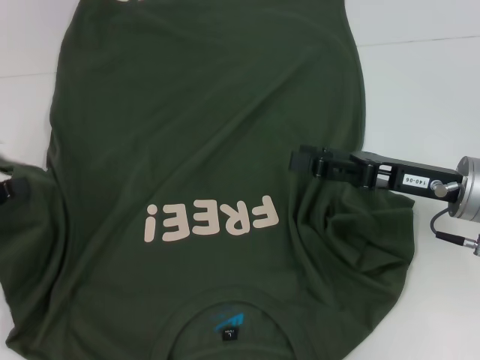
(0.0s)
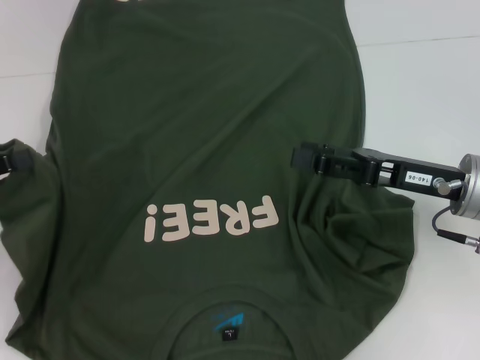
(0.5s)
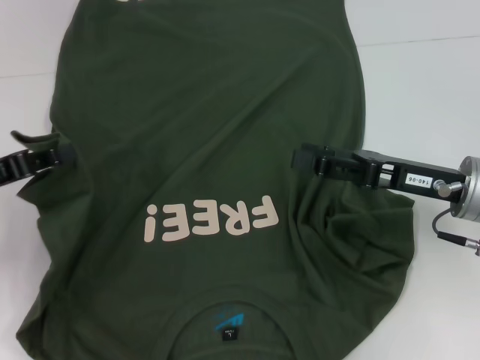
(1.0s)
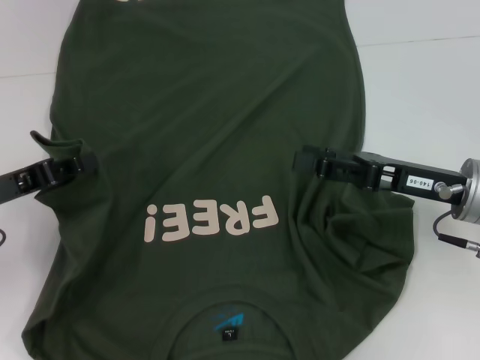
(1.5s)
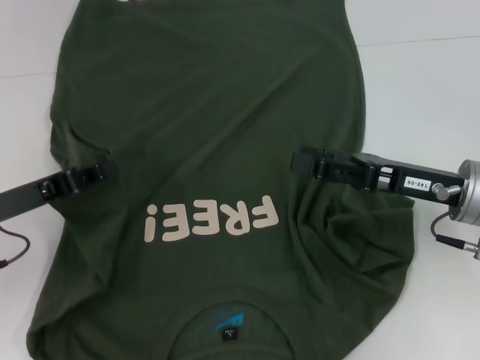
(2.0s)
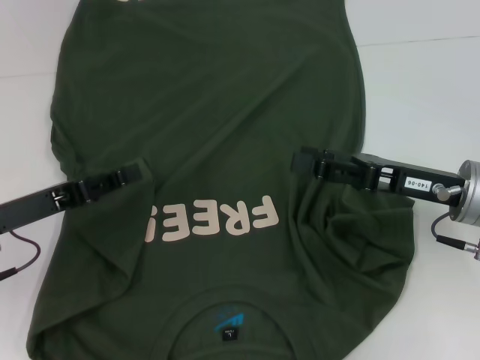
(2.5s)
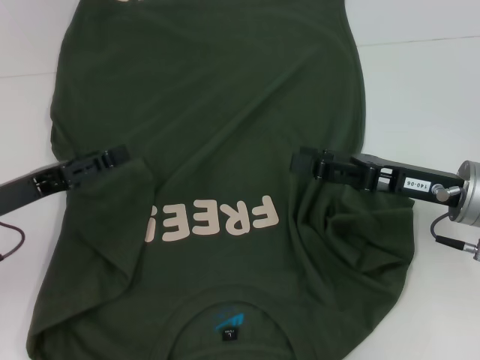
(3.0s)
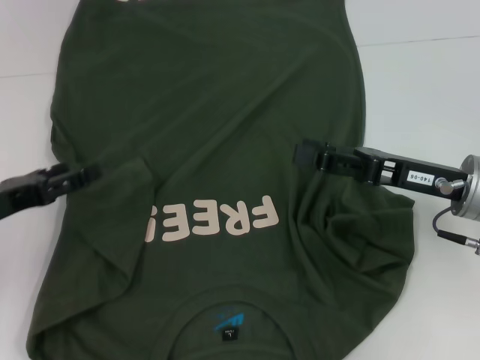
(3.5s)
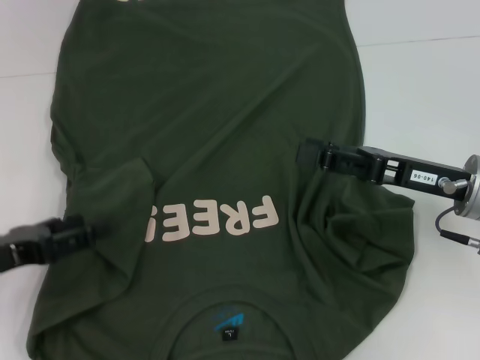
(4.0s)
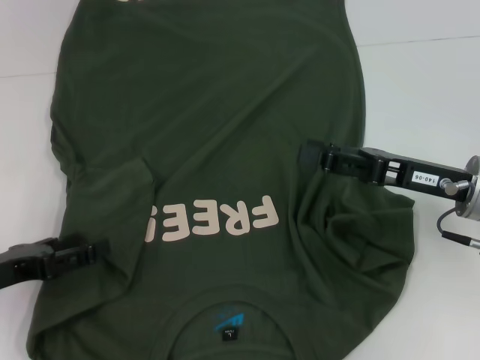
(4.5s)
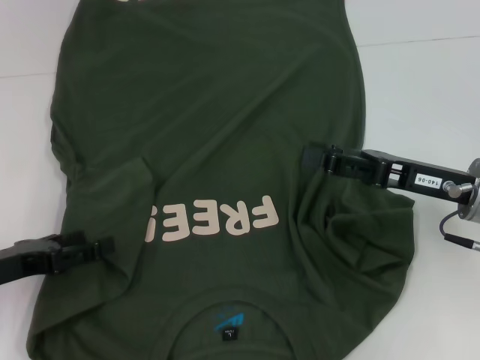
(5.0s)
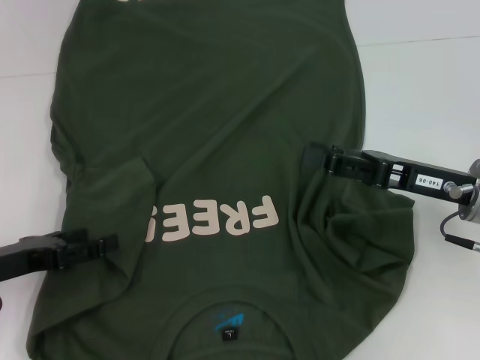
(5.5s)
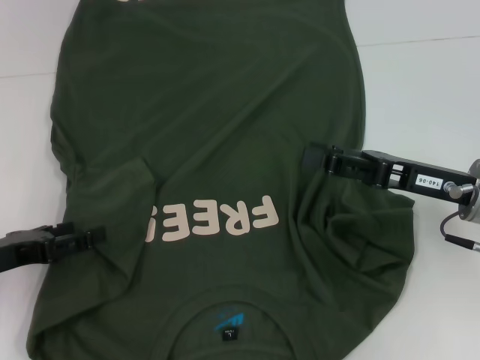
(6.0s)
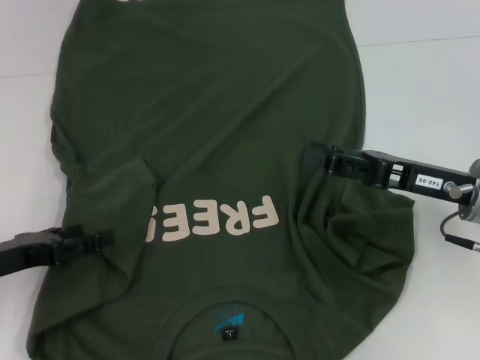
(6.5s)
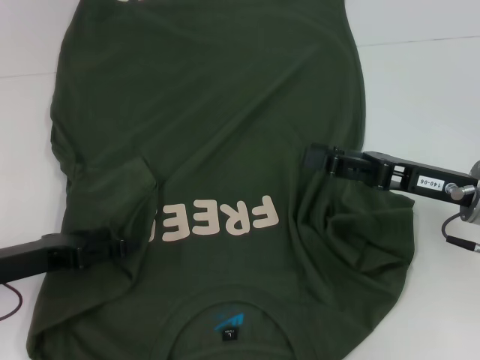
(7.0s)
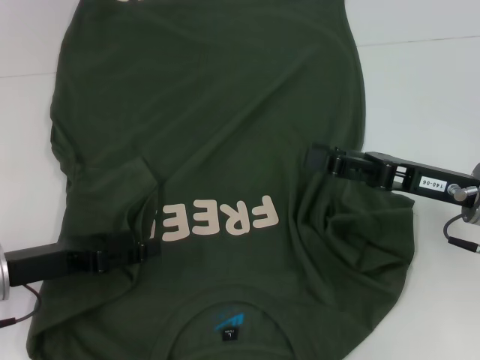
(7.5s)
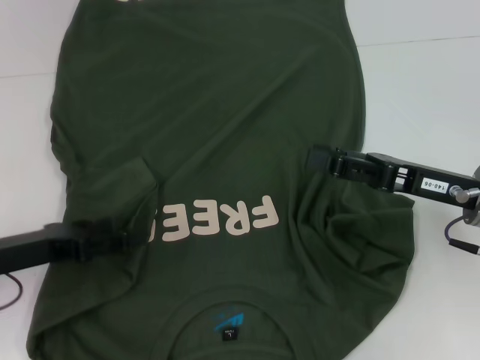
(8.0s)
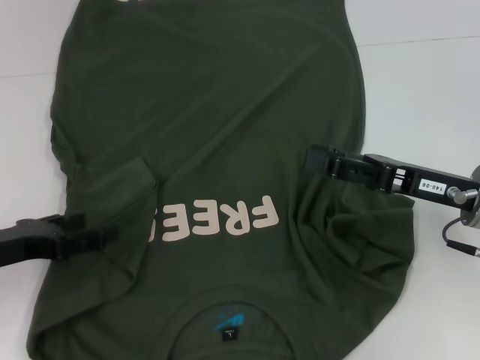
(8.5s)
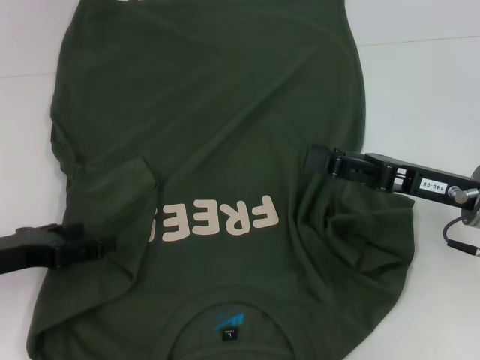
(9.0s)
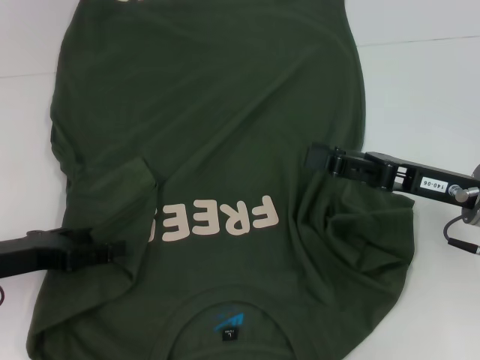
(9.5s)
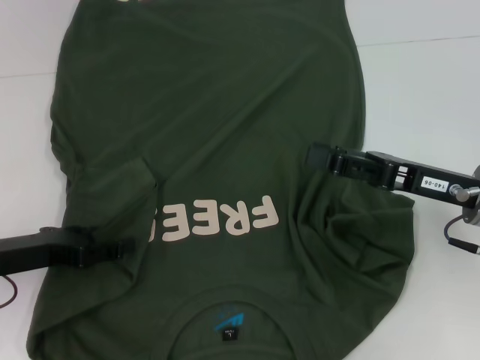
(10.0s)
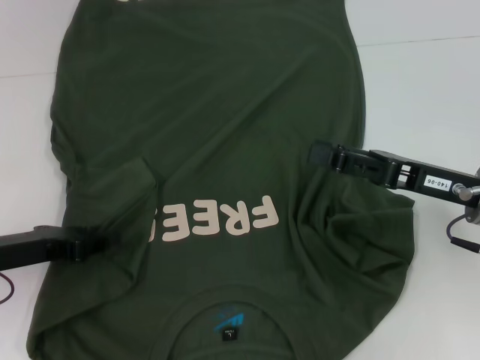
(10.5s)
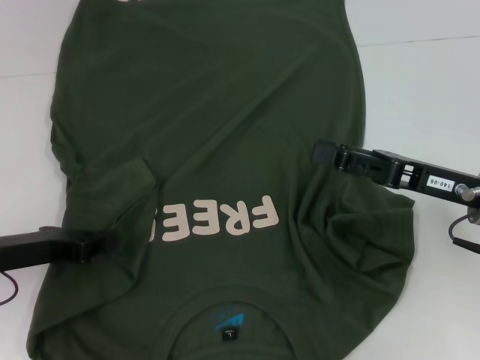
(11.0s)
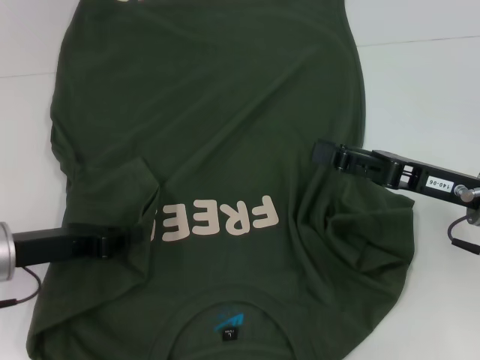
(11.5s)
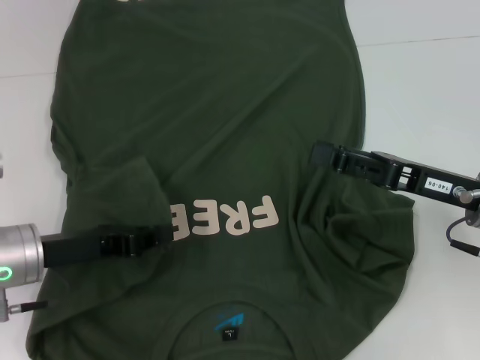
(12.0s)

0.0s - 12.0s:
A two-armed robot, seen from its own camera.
0.0s - 2.0s: The left gripper moves to the right, approximately 10 cm.
2.0s - 4.0s: The left gripper moves some 5 cm, and opens.
4.0s - 10.0s: There are only small adjustments of the grippers.
10.0s - 12.0s: The left gripper closes its fingers.

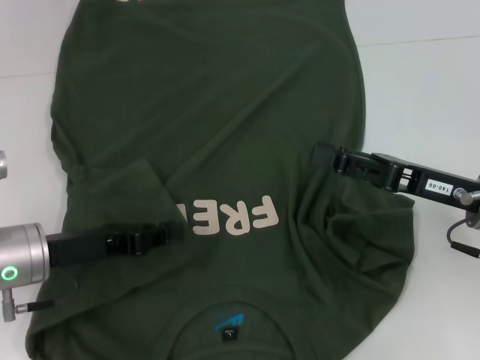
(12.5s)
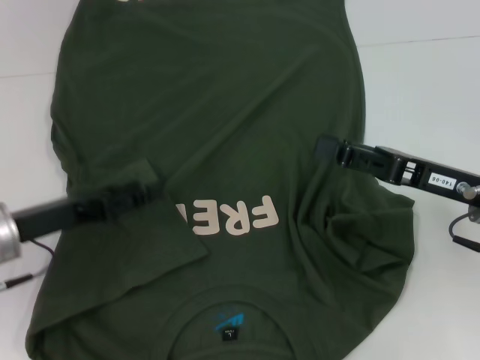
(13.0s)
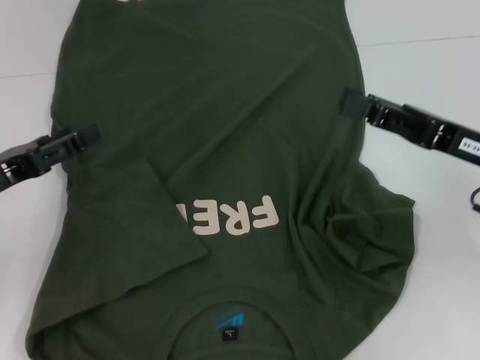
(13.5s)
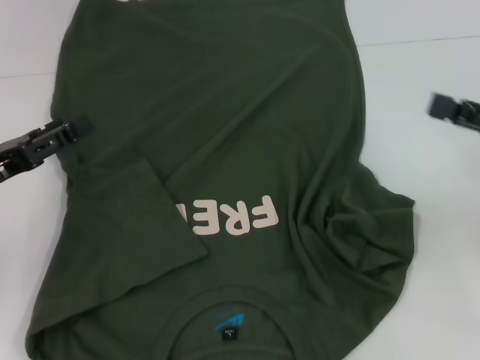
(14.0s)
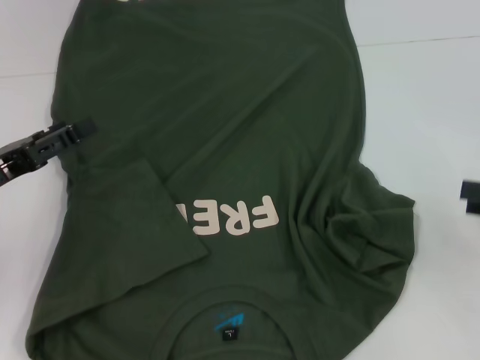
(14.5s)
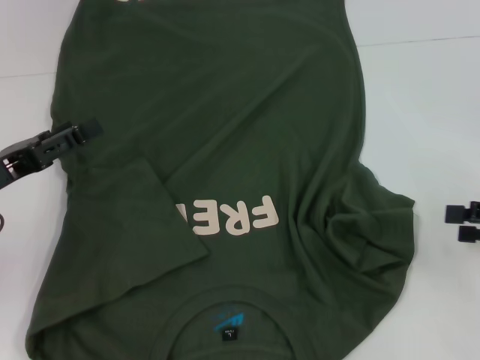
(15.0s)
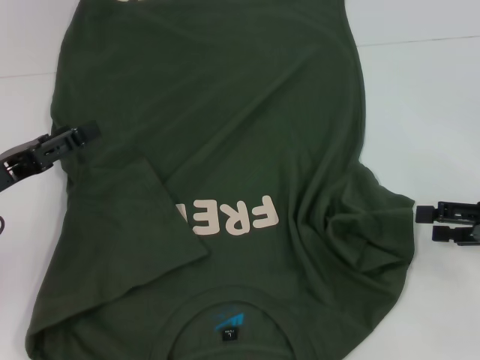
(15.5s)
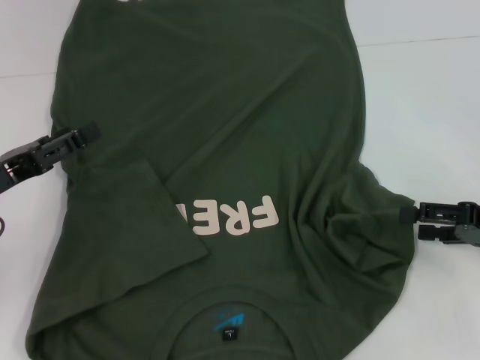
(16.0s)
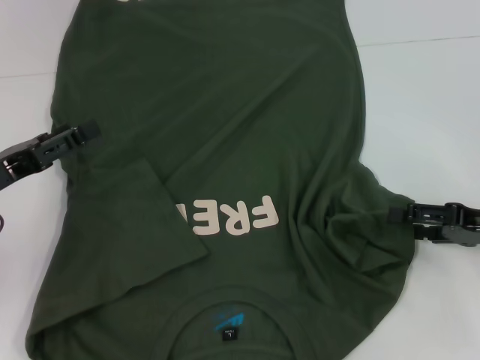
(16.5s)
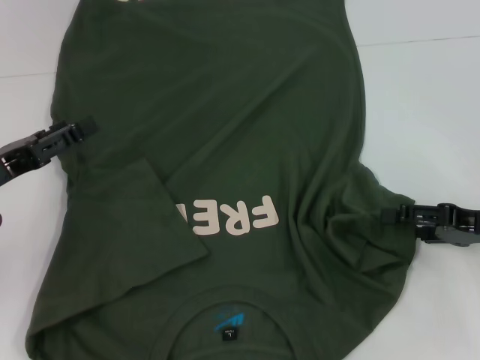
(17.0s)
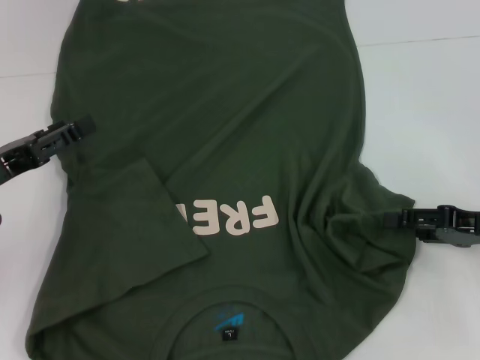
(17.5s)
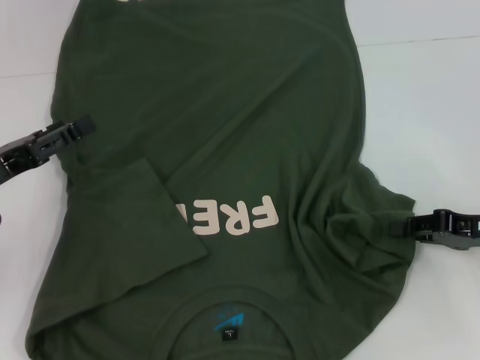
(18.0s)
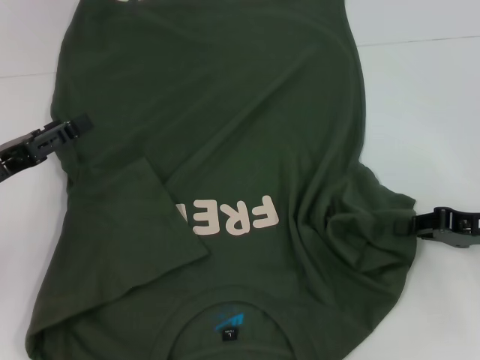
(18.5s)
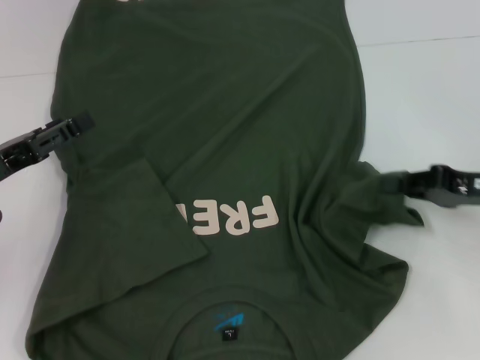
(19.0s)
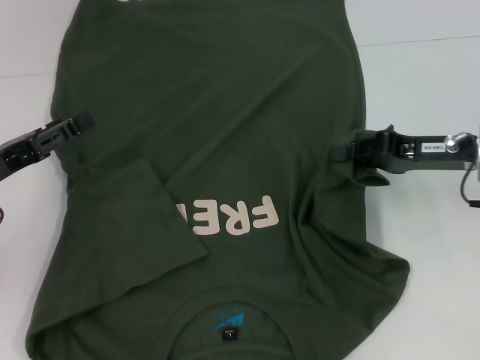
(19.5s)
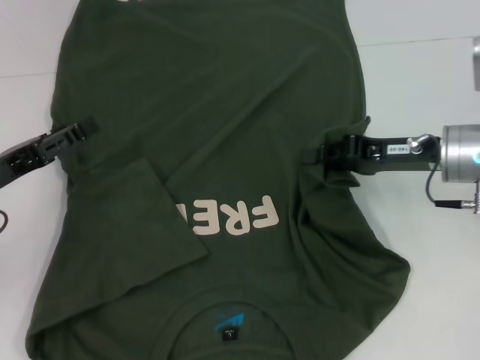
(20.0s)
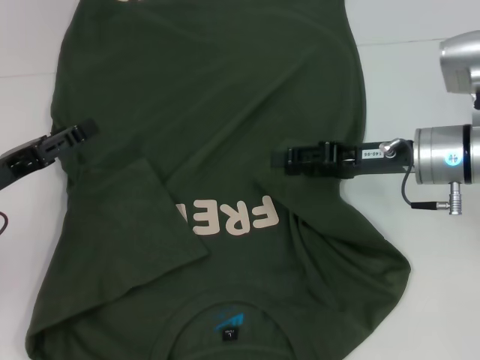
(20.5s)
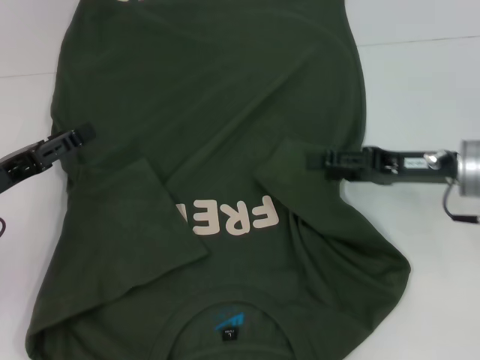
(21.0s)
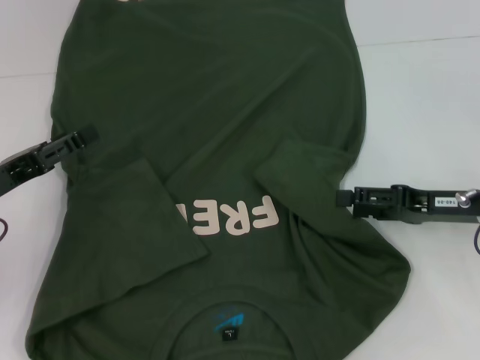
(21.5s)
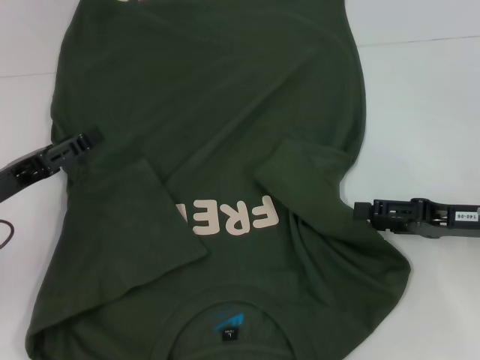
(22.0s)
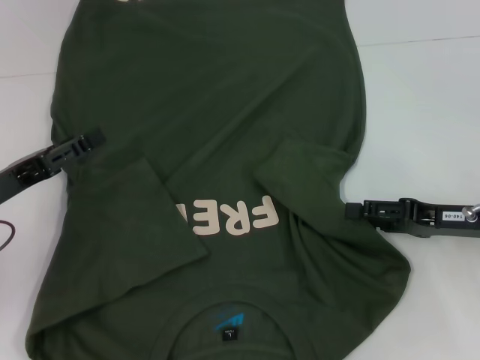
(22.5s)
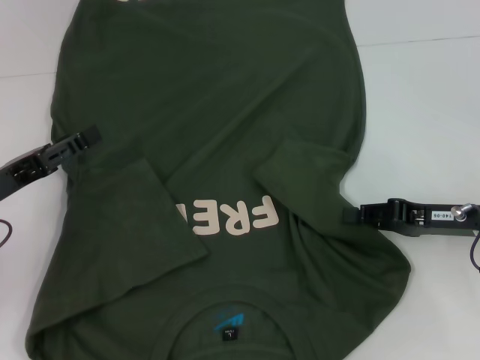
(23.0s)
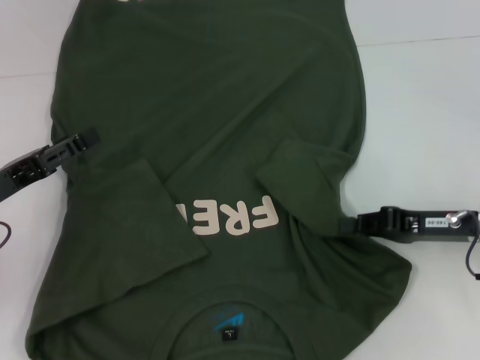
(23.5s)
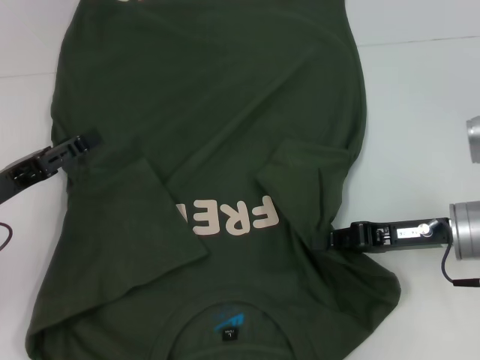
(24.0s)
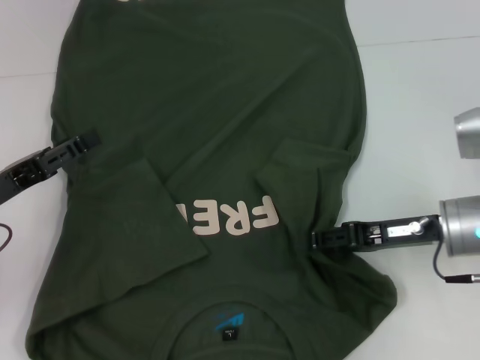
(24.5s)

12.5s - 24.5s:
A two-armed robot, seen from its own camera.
12.5s - 14.5s: The left gripper moves to the left, about 5 cm, and opens. The right gripper goes roughly 15 cm to the right.
14.5s - 16.5s: The right gripper ends up roughly 10 cm from where it was.
16.5s - 18.5s: The right gripper closes its fingers.
18.5s - 20.5s: The right gripper is displaced to the left and forward by approximately 15 cm, and opens.
20.5s - 22.5s: The right gripper is displaced to the right and backward by some 10 cm, and opens its fingers.
22.5s - 24.5s: The right gripper goes about 5 cm to the left, and closes its fingers.

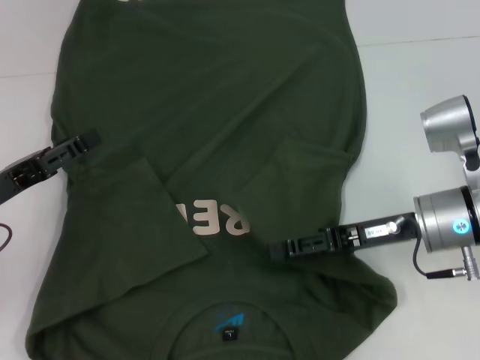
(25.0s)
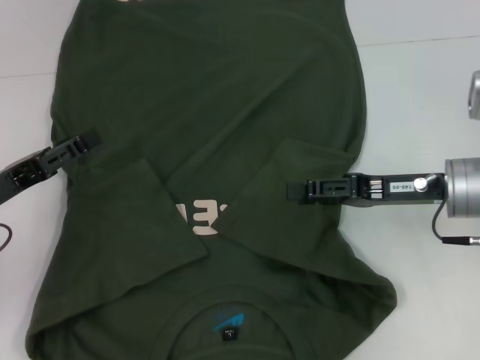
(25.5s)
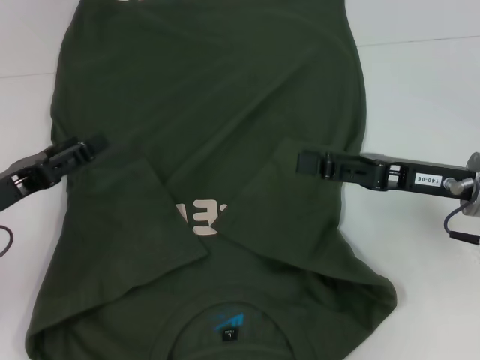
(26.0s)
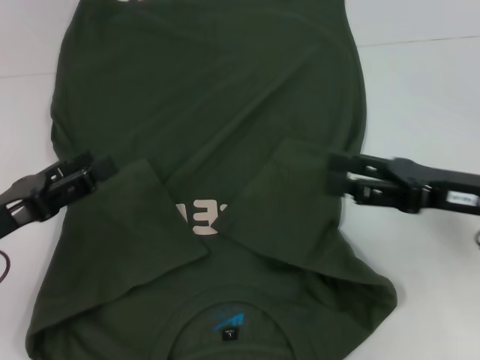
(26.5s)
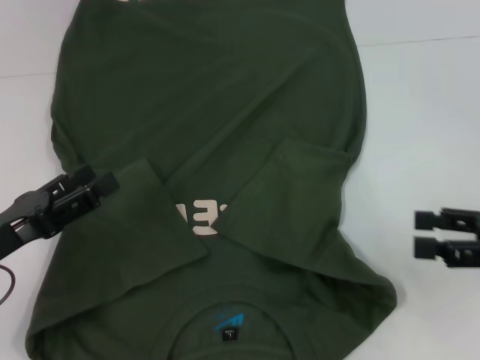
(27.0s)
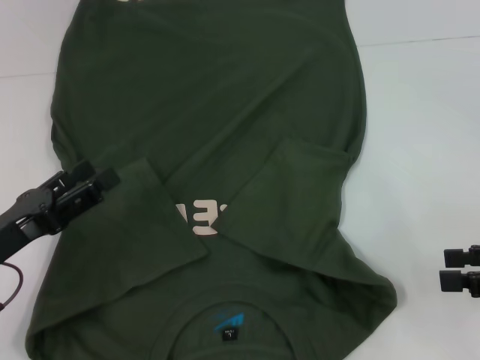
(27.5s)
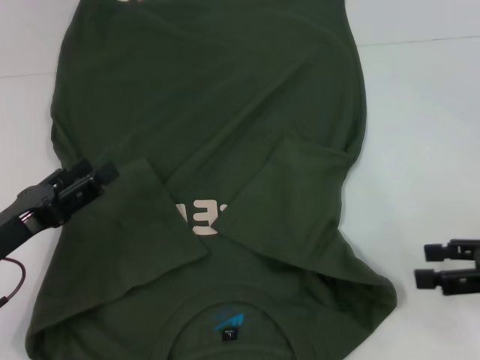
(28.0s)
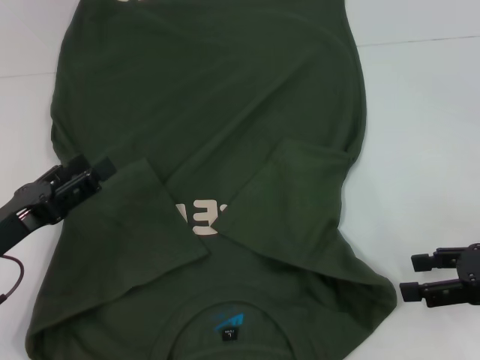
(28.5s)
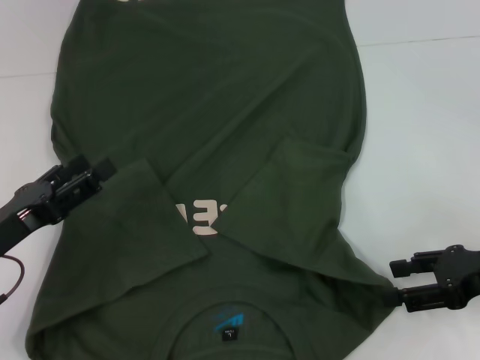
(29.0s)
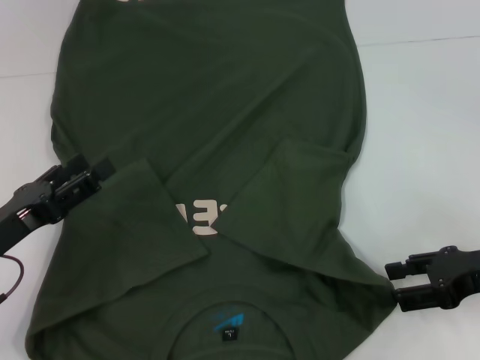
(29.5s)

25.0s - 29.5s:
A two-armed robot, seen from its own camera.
25.0s - 27.0s: The right gripper moves to the right and backward, some 15 cm; the left gripper moves backward, about 5 cm.
27.0s - 29.5s: The right gripper moves approximately 5 cm.
